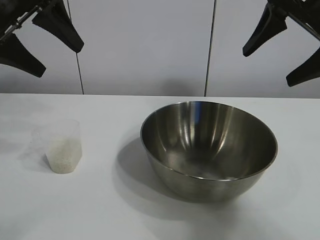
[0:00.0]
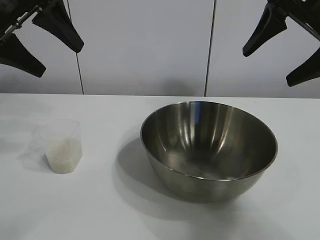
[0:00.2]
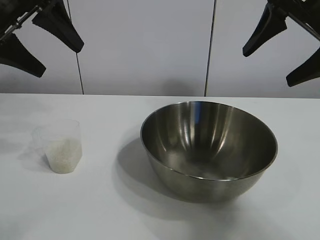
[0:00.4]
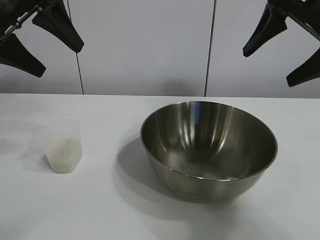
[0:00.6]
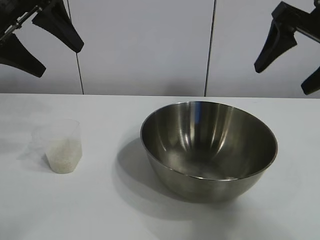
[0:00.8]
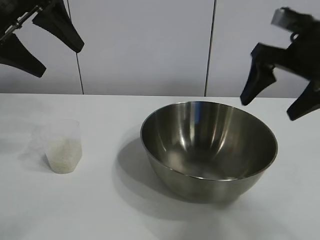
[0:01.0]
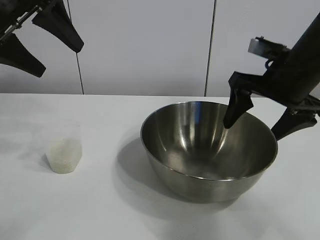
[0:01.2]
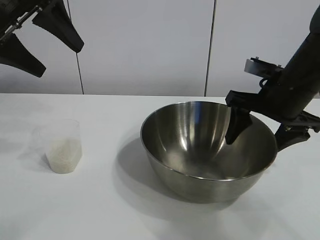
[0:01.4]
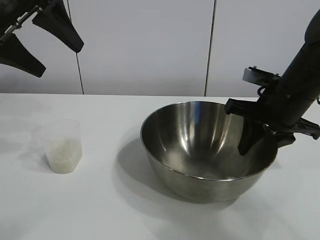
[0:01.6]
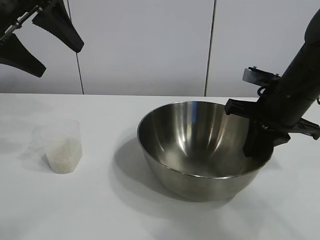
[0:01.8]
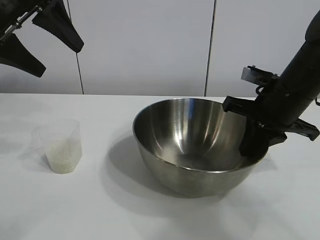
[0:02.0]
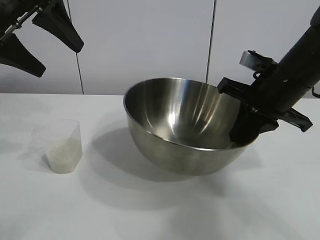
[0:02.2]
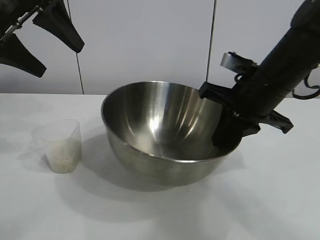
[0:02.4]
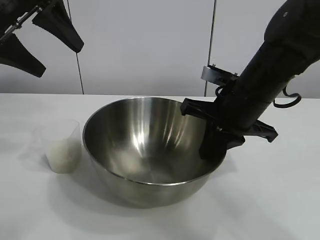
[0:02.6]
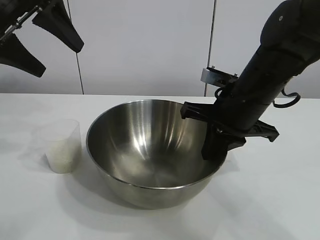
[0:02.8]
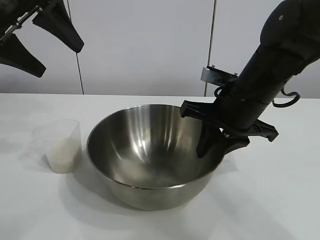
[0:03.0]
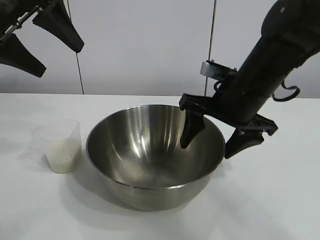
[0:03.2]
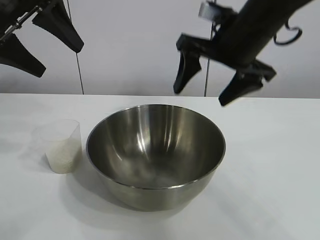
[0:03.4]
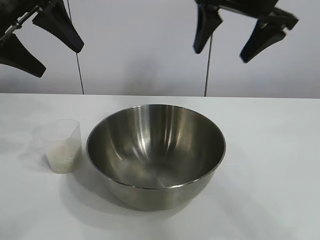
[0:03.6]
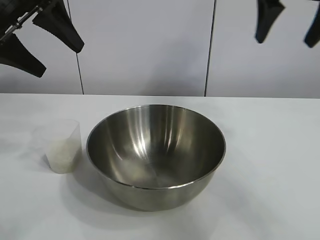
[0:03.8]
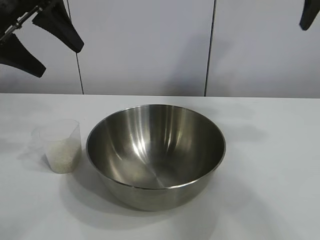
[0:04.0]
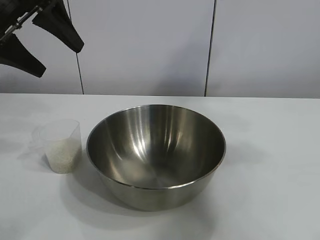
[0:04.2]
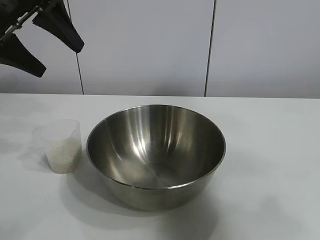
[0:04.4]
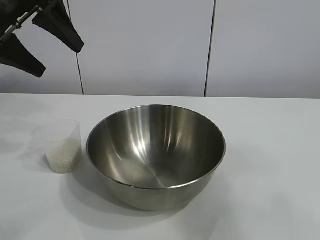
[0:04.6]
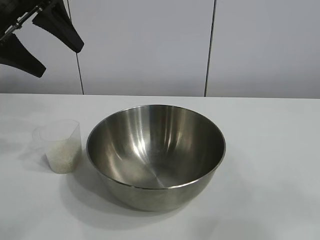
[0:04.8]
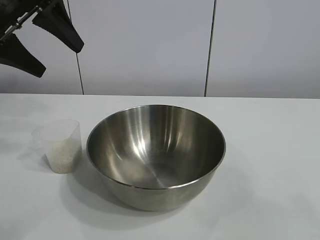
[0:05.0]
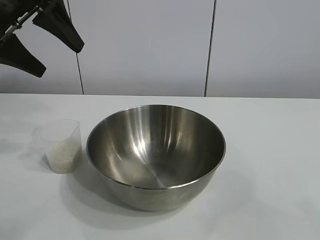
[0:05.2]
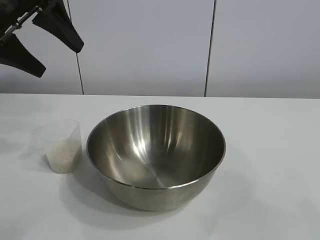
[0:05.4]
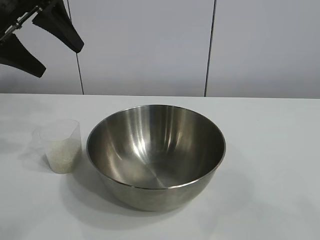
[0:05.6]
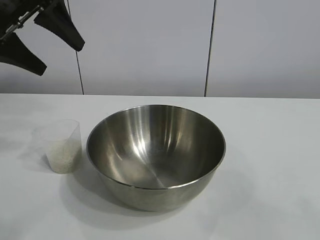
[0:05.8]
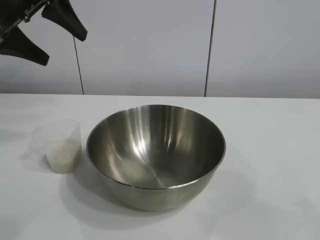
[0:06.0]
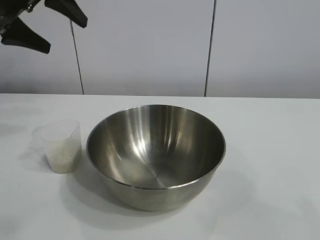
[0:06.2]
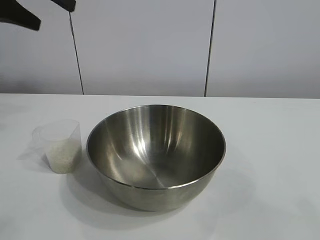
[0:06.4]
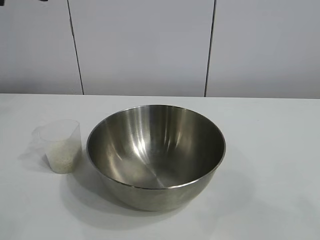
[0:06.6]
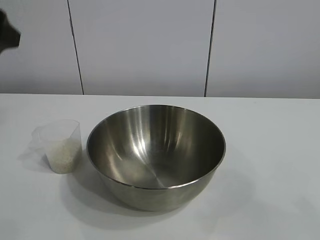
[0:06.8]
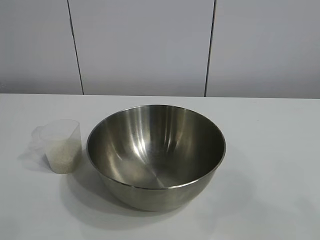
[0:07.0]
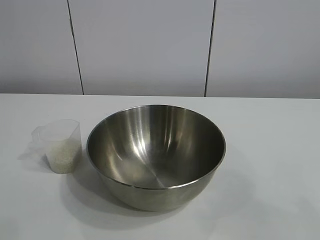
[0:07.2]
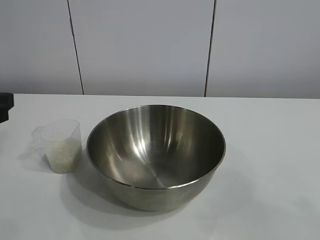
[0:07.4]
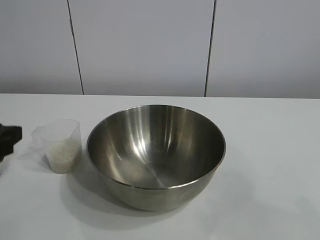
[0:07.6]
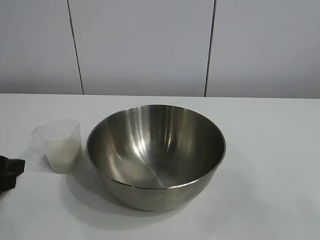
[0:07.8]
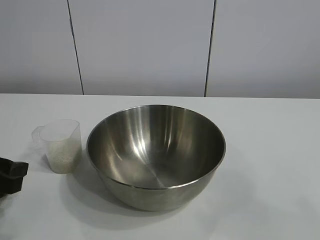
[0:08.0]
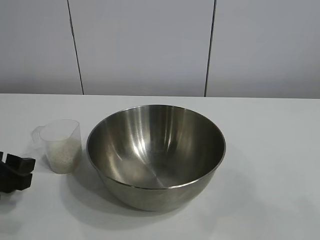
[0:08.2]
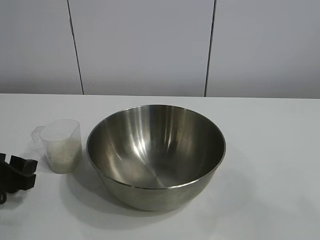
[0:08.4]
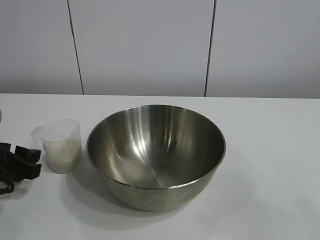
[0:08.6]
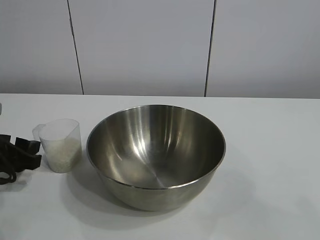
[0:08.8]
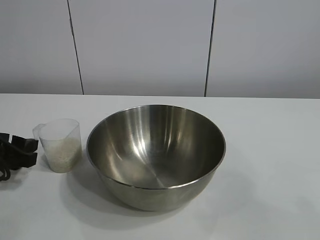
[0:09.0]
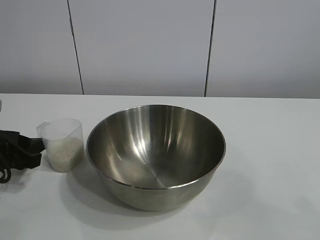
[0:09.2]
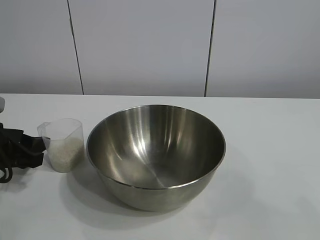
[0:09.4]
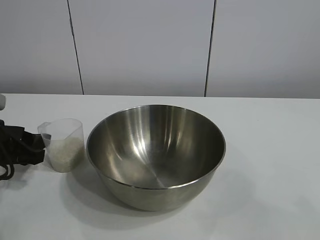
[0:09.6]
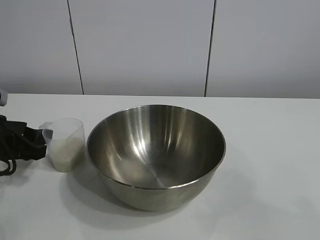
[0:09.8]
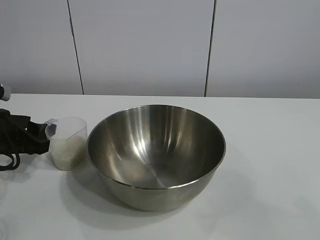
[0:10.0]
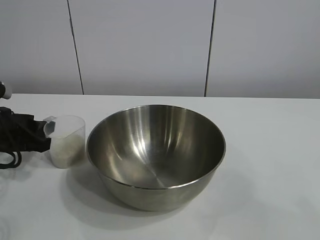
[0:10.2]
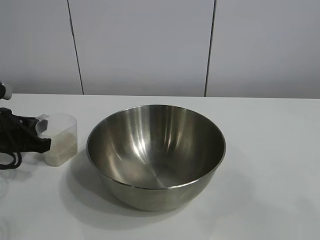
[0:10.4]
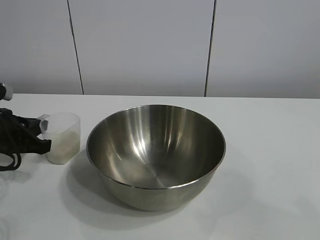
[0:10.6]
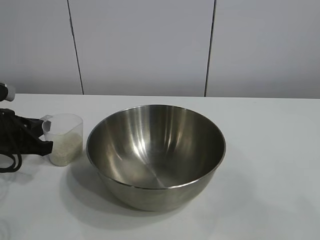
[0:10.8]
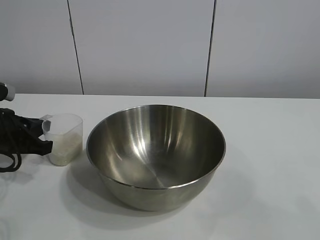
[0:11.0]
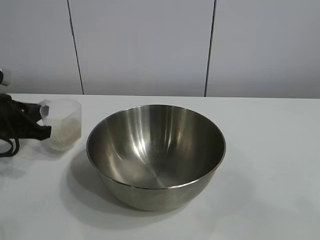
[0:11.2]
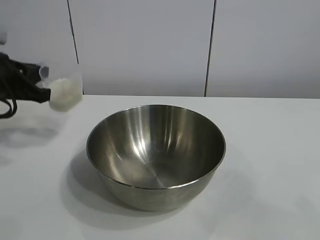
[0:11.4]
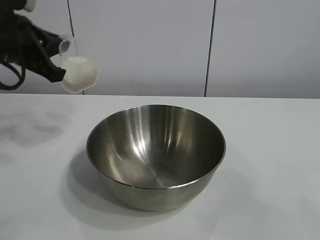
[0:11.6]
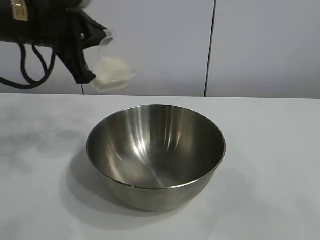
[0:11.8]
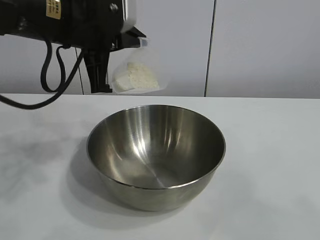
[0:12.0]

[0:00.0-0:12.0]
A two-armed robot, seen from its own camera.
Task of the whole recording: the right gripper grasp the rice container and place it in the center of the table, the left gripper grasp the rice scoop and pour the rice into the rice container.
Step, 0:00.8 to 0:03.0: Move the bowl in the center of view with right gripper.
Step, 0:03.2 to 0:10.6: Grasp the cup with rice in it with left gripper.

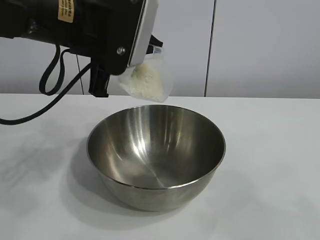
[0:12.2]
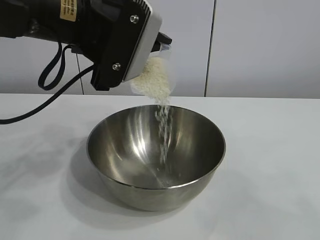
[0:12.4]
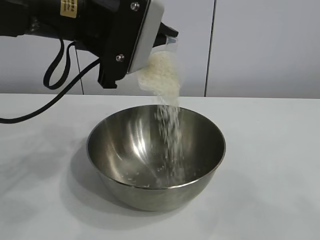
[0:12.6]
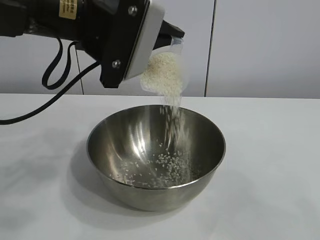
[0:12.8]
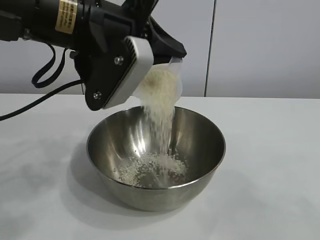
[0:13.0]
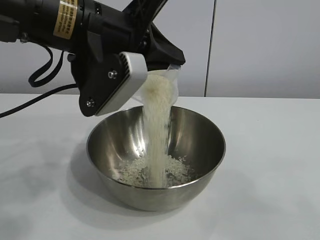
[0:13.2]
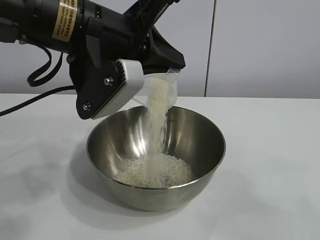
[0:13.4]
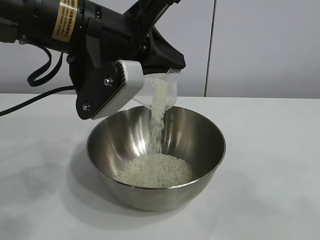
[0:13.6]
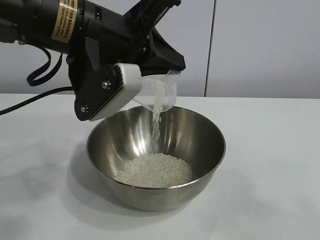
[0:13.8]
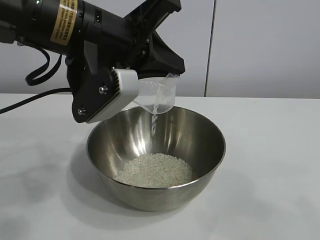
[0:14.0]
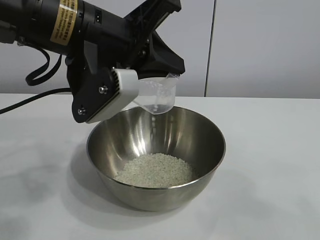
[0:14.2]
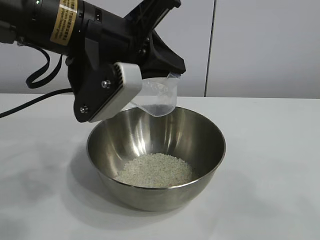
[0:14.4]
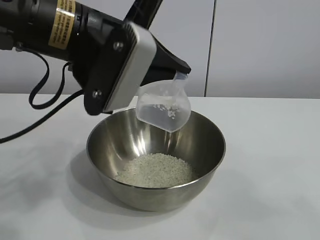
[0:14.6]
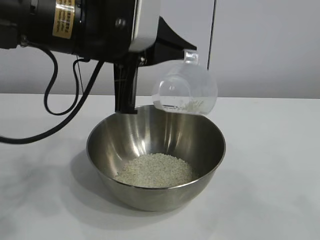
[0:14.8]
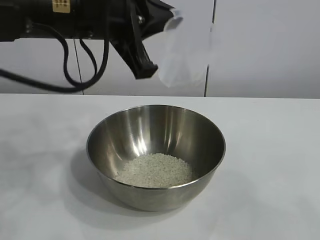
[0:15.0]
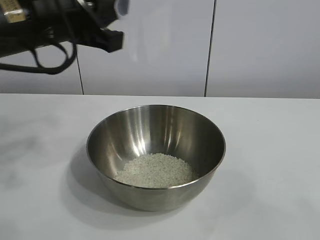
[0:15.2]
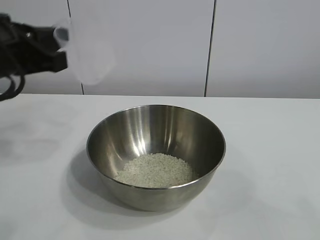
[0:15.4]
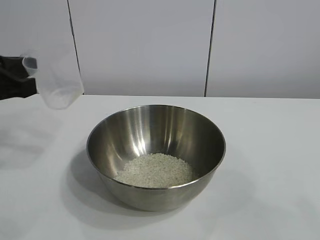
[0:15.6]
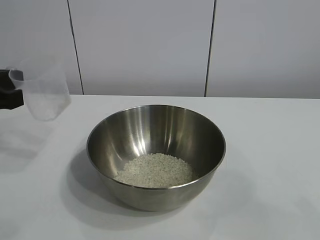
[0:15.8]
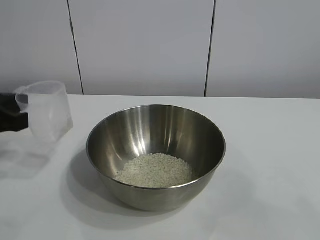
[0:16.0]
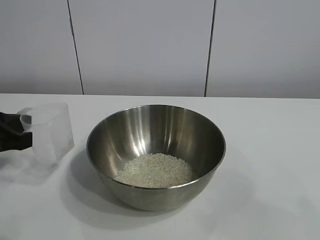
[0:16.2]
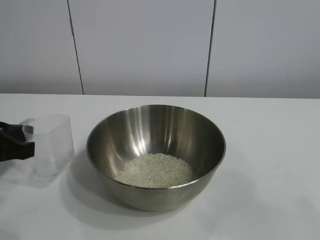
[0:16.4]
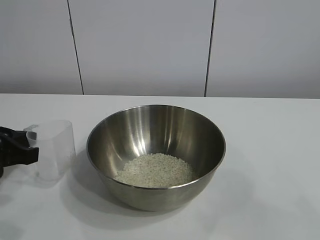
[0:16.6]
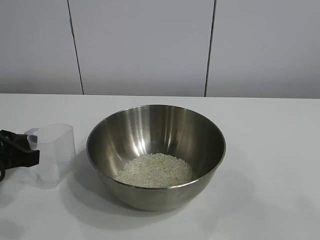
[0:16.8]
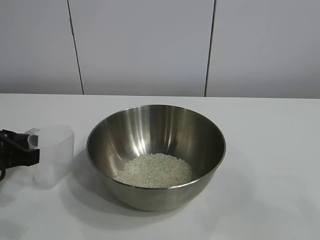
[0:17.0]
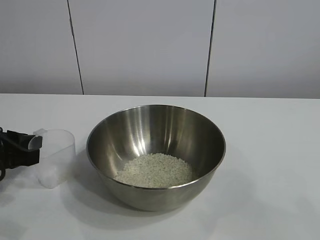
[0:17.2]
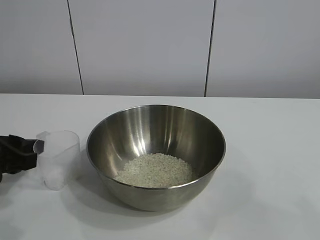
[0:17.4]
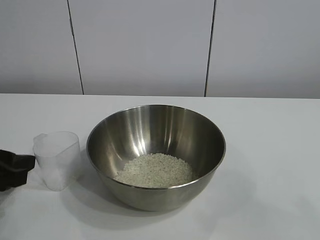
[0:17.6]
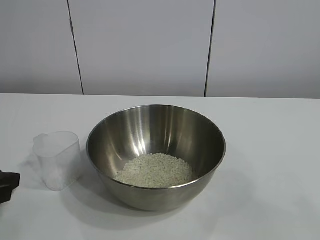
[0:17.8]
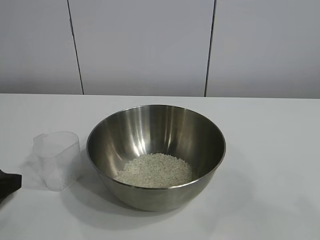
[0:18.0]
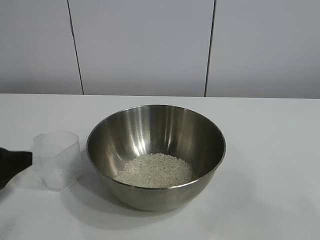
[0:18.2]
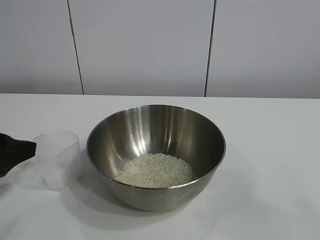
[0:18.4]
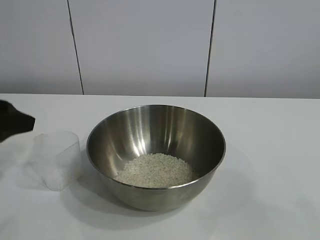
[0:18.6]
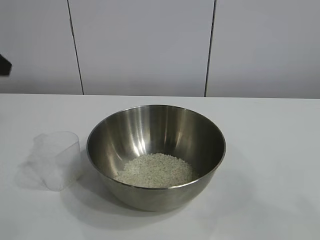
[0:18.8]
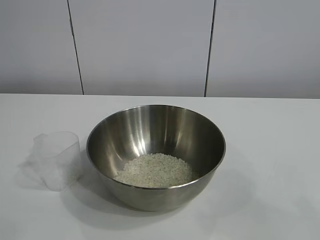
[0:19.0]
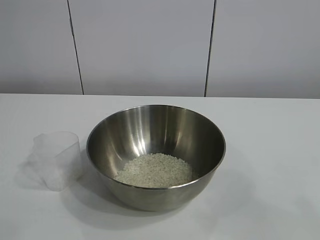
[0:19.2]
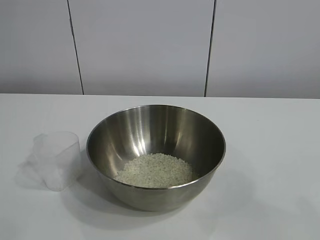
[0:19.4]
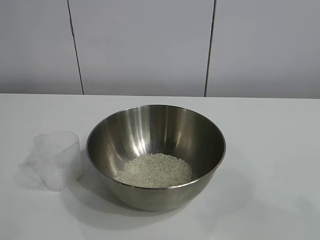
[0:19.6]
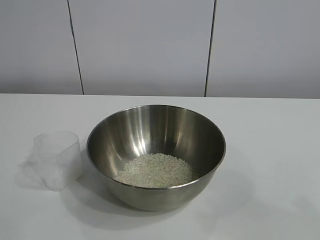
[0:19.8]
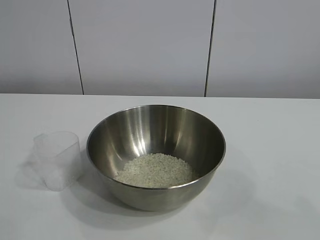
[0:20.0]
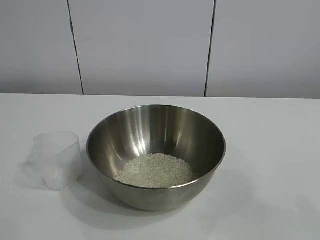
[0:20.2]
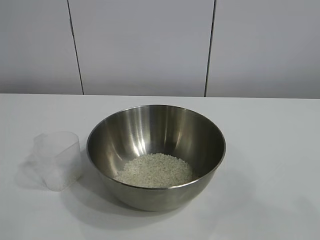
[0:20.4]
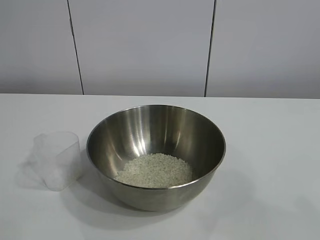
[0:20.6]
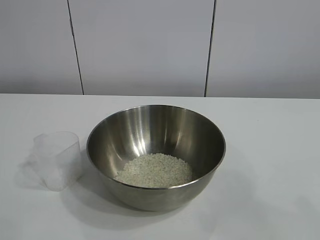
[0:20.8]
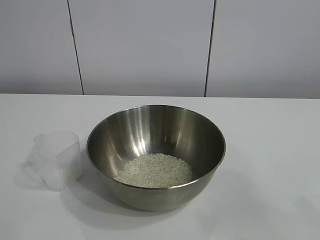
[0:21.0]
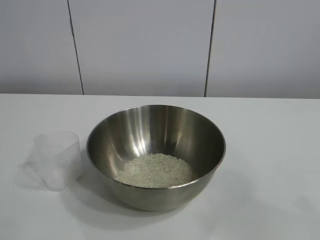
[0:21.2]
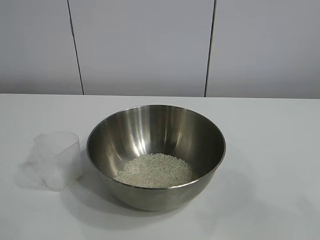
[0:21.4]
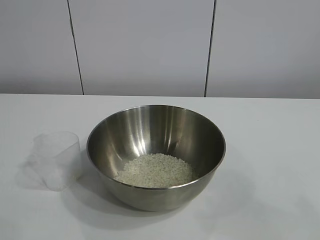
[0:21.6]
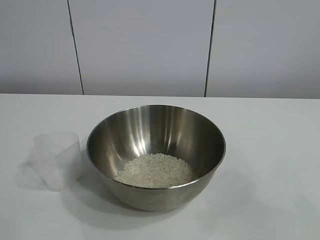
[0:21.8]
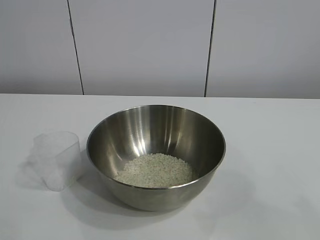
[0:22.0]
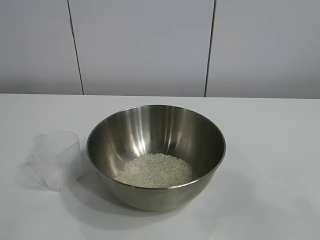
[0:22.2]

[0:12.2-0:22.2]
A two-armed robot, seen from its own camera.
Task of the whole recording: the right gripper grasp the rice container and place it in the center of the table, the left gripper grasp the rice scoop and pour the rice into the rice container.
Step, 0:12.2 to 0:14.2: Pour the rice from the cup into the bowl with the left gripper.
Step, 0:14.4 to 0:17.4: Place the cup on the table with the left gripper.

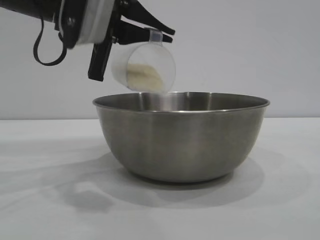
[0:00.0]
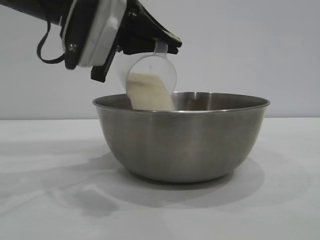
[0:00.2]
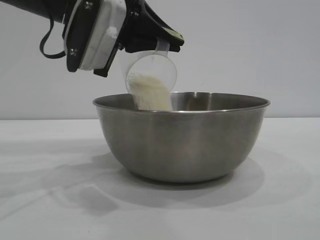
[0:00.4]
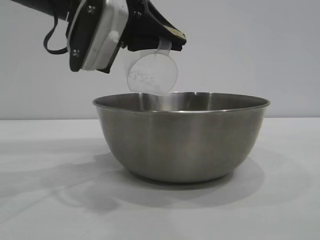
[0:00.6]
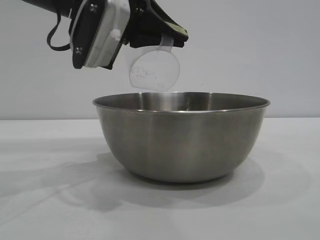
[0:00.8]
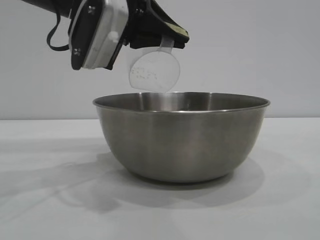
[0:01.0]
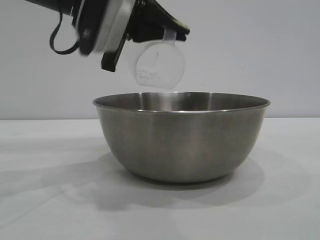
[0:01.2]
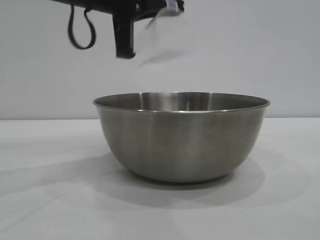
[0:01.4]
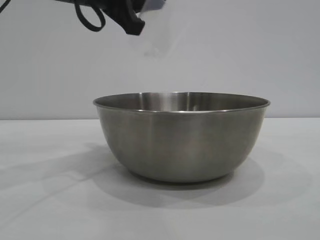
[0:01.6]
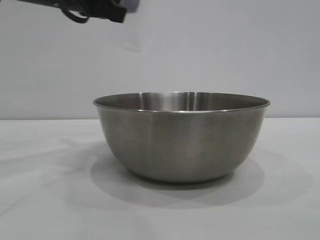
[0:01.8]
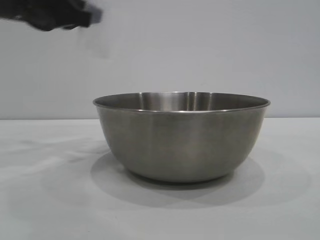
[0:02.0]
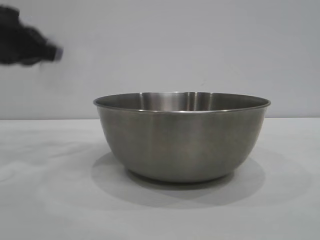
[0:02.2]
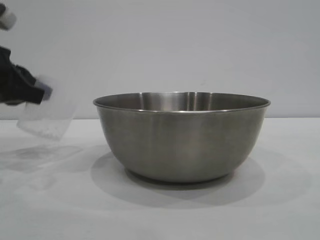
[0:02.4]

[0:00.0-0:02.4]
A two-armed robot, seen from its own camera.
Task of the whole recording: the right gripper grasp the rice container and place it in the center of the table, the left gripper grasp the rice scoop and pour the rice into the rice container.
Step, 0:00.0 to 0:01.8: Pour the rice from the cup into the bowl with the left gripper.
